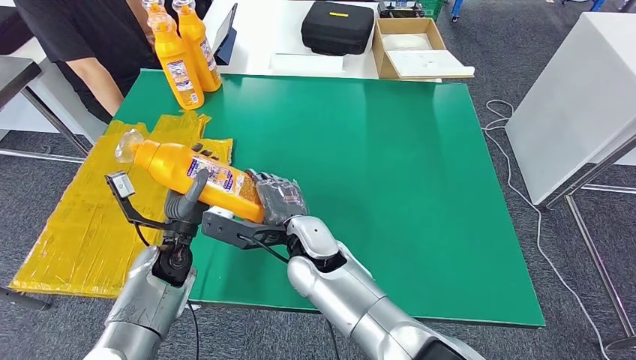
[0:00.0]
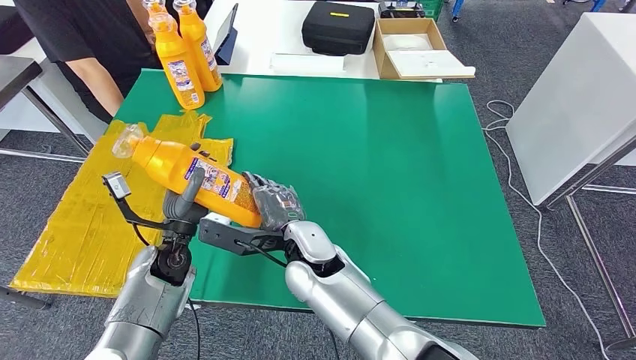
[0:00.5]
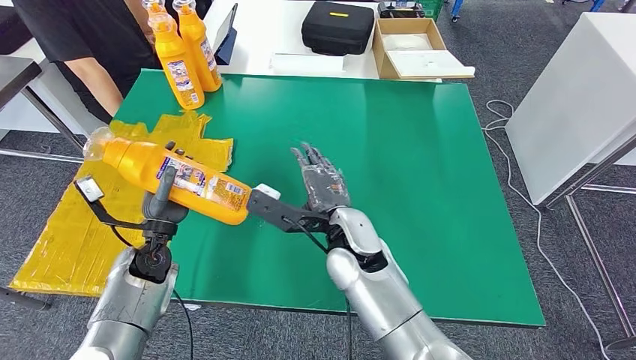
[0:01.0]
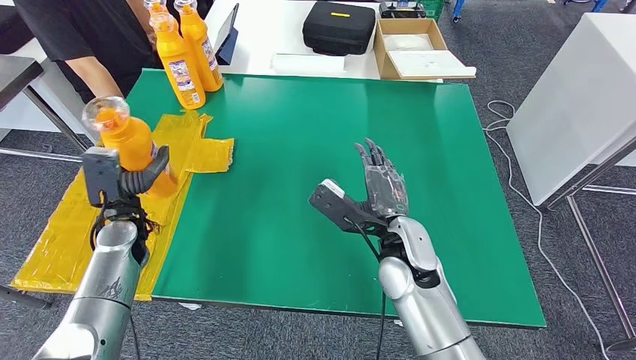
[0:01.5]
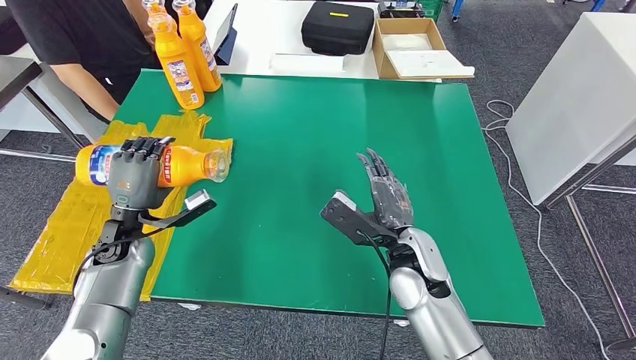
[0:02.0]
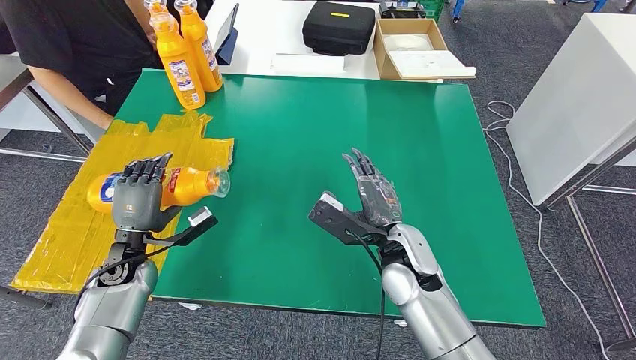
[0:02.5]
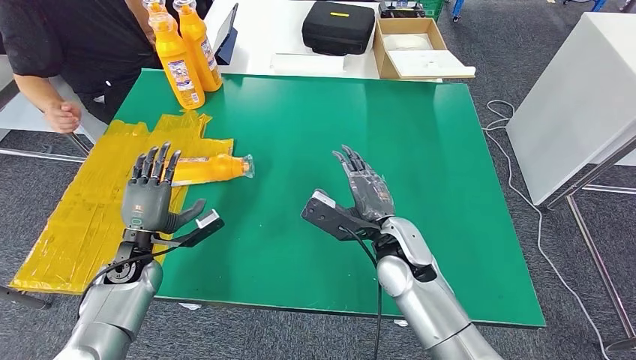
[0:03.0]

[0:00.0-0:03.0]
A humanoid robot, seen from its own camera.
Step, 0:00.0 to 0:03.0: Flip the fast-moving consumer goods bottle to the front side.
0:01.5 to 0:03.0: The left hand shifts some 5 cm downward.
